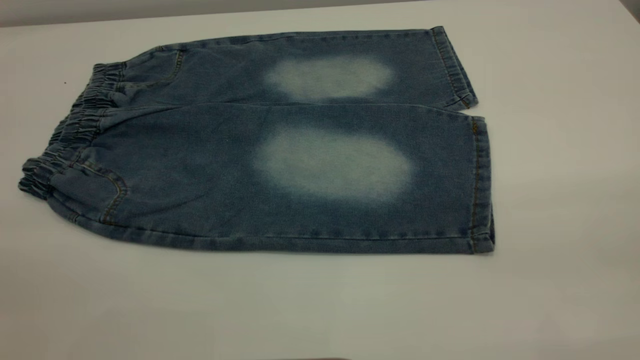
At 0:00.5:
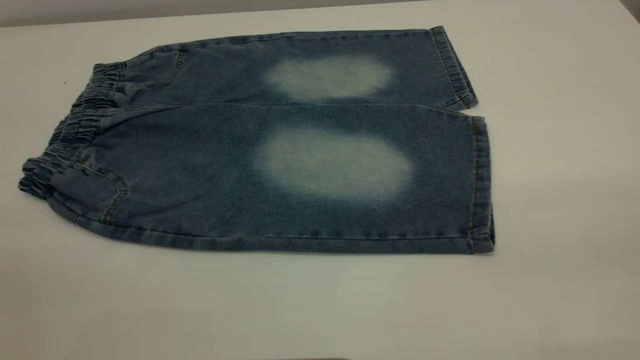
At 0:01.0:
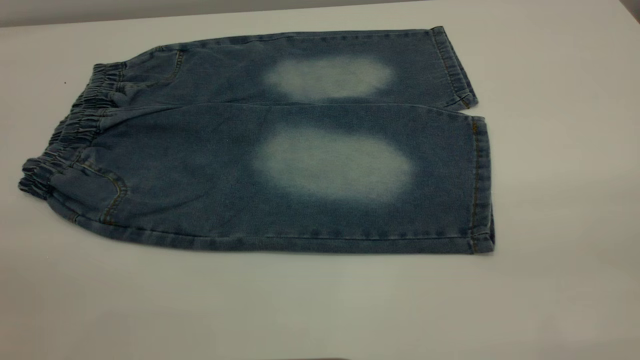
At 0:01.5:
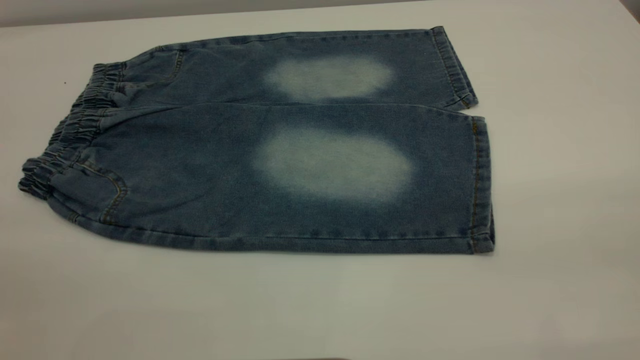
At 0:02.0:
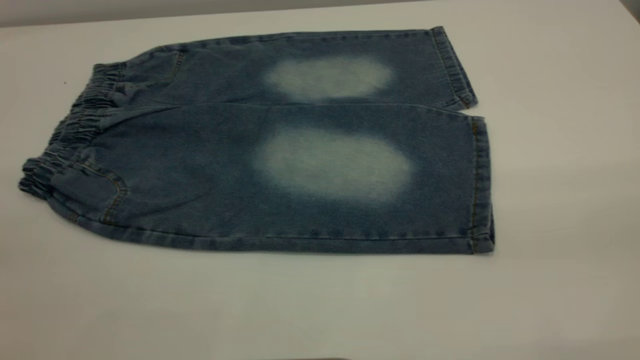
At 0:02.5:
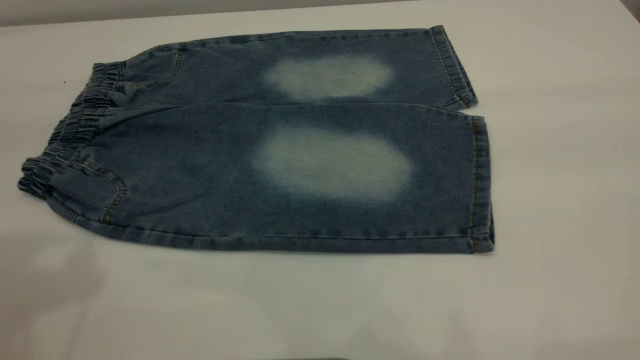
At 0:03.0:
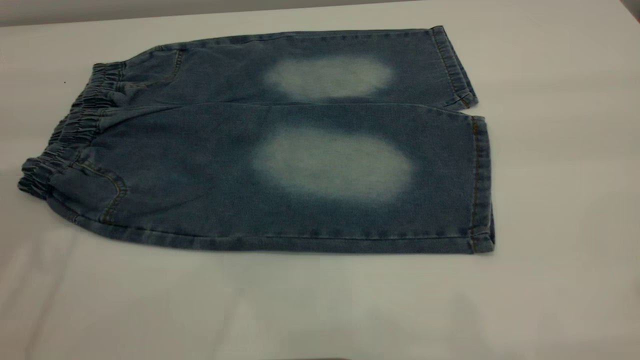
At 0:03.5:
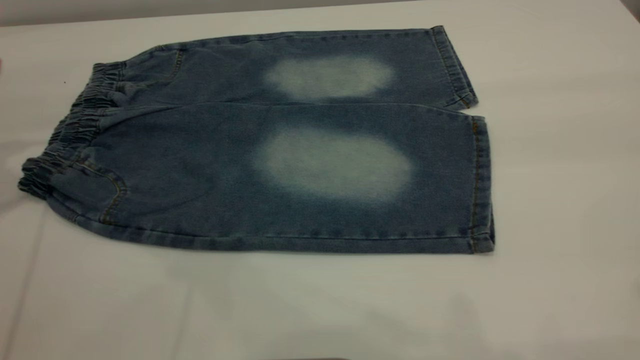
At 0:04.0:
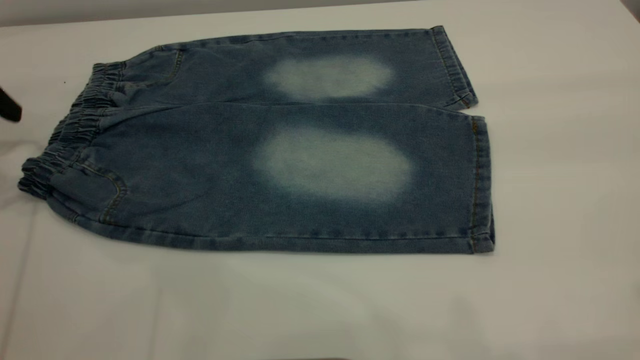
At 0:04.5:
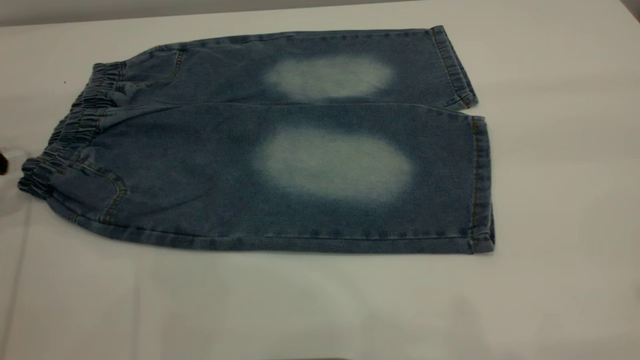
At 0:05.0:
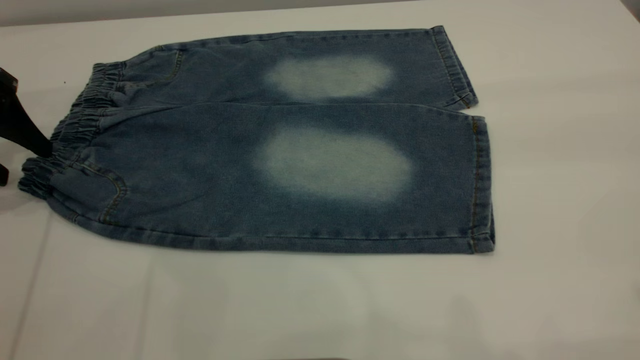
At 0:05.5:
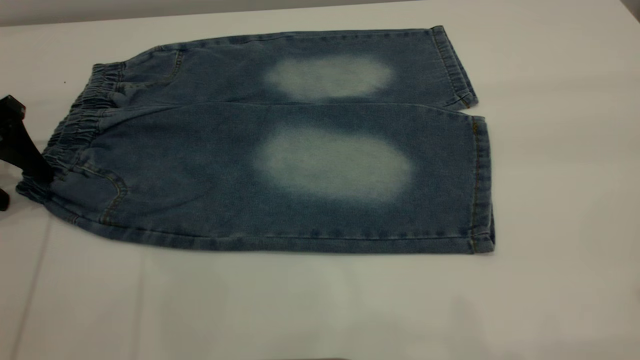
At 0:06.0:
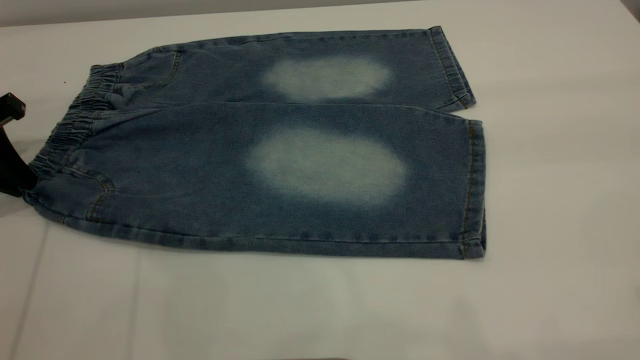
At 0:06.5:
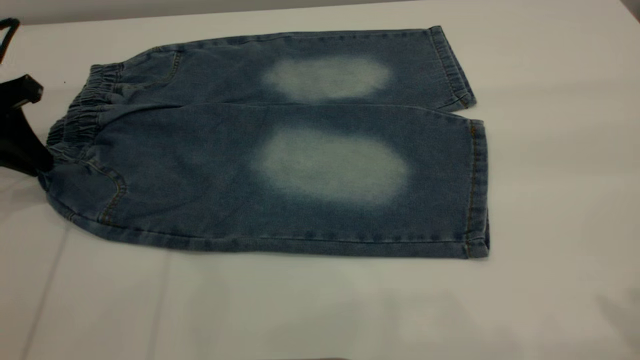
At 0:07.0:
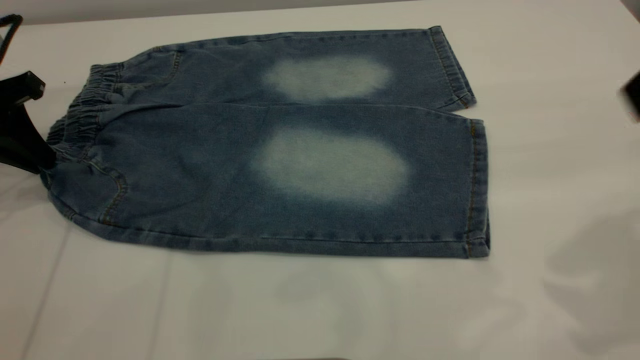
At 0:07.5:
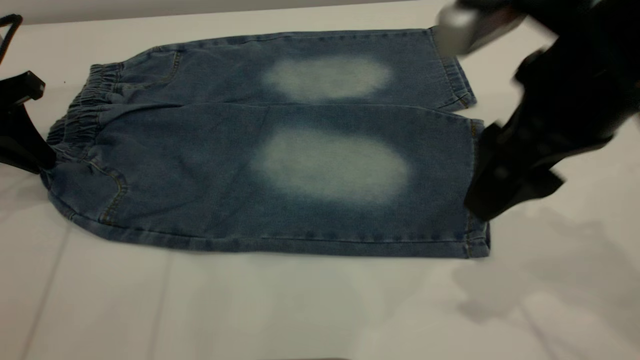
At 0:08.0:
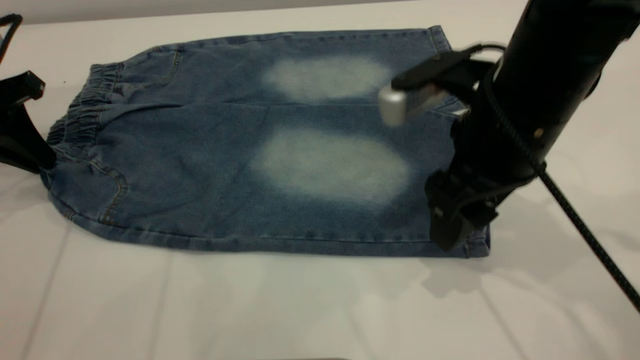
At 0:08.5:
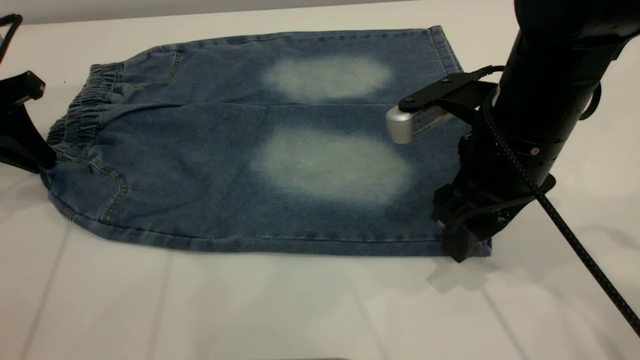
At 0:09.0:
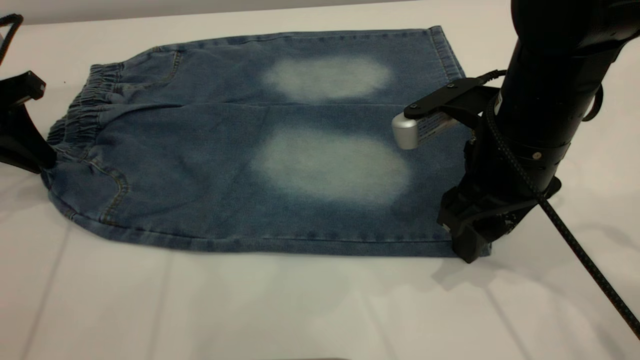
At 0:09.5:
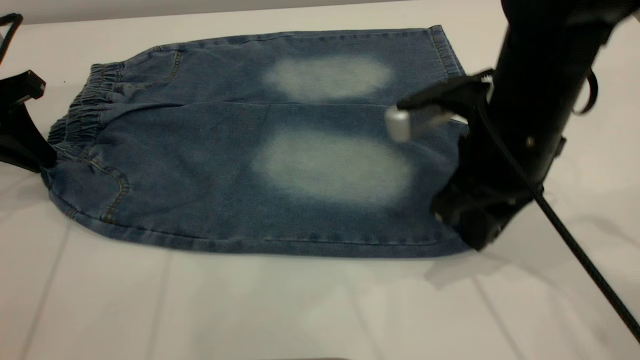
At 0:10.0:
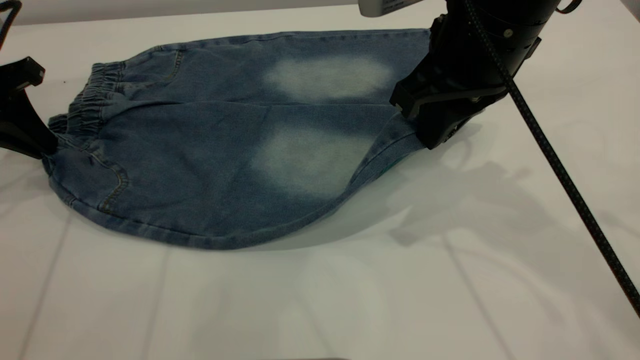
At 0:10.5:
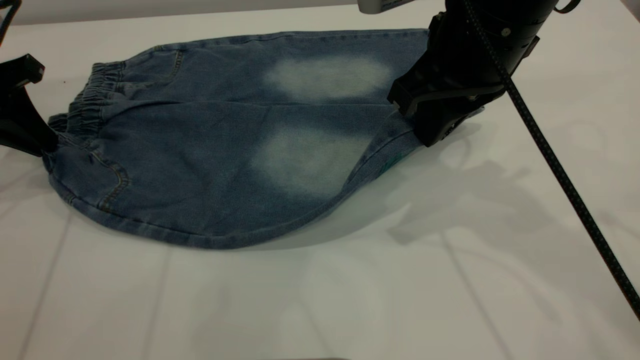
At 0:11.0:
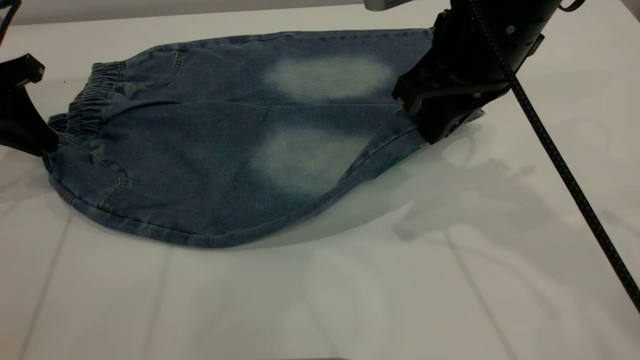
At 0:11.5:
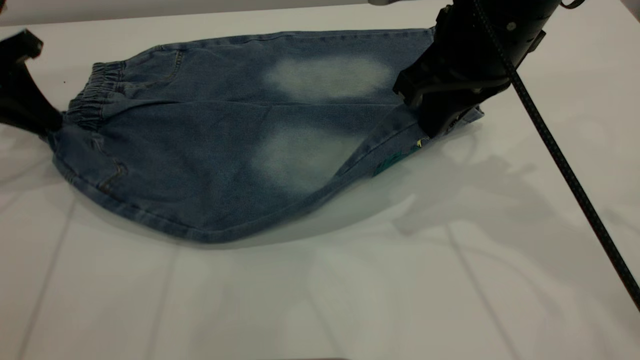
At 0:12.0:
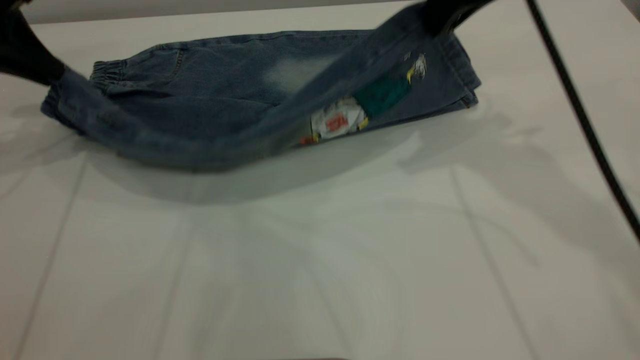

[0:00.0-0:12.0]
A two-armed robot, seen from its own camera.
0:02.0 to 0:04.0: The left gripper travels forward and downward by about 35 cm.
0:04.0 to 0:06.0: The left gripper goes approximately 5 cm downward, and closes up.
0:06.0 to 0:08.0: The right gripper moves downward, forward and to the left, roughly 30 cm.
0:08.0 to 0:10.0: The right gripper goes approximately 5 cm upward, and closes up.
0:10.0 to 0:12.0: The right gripper travels forward and upward by some 10 cm; the left gripper goes some 5 cm upward.

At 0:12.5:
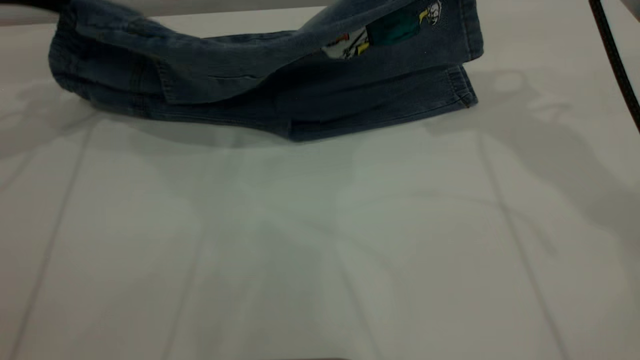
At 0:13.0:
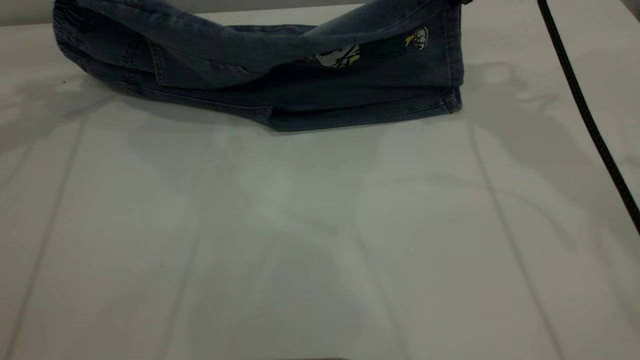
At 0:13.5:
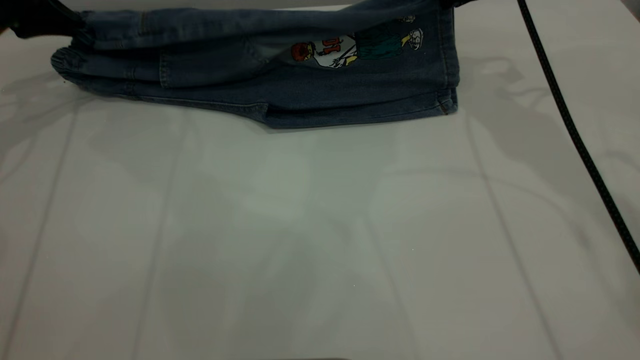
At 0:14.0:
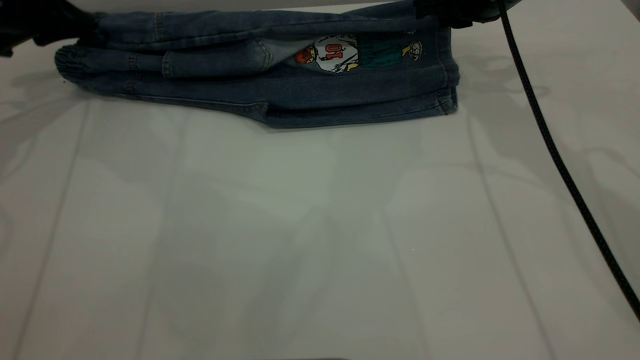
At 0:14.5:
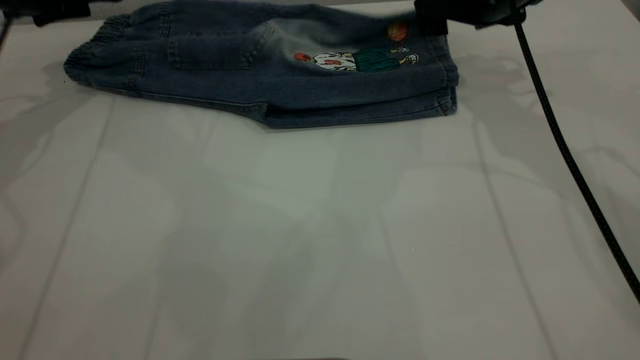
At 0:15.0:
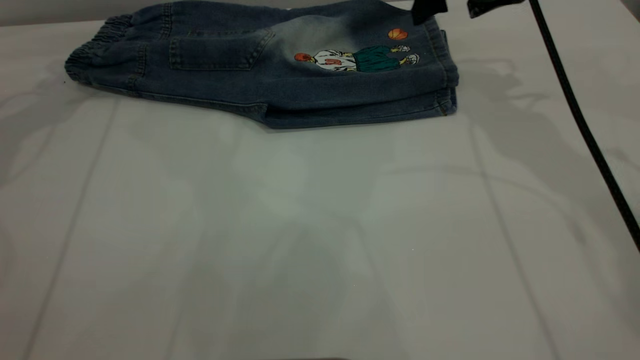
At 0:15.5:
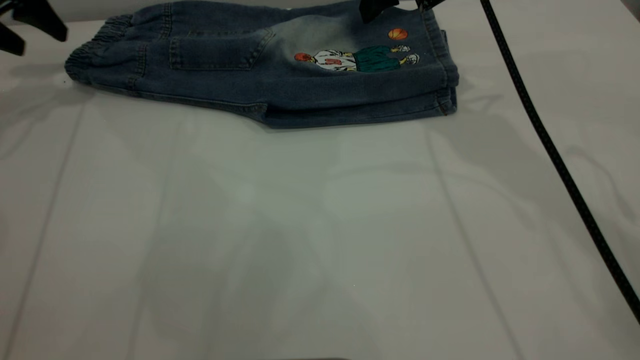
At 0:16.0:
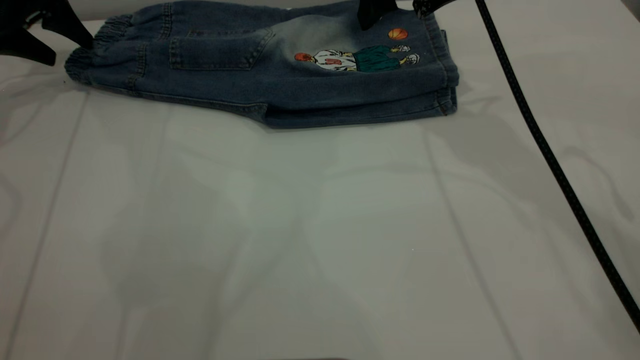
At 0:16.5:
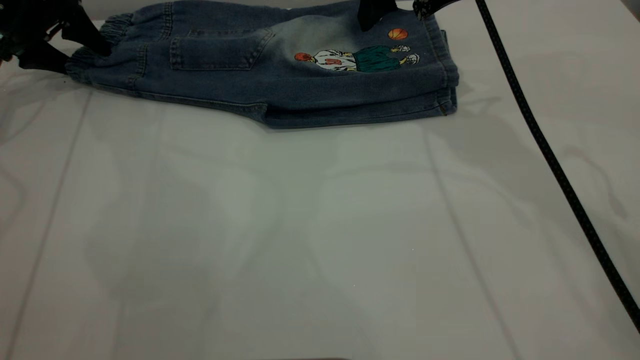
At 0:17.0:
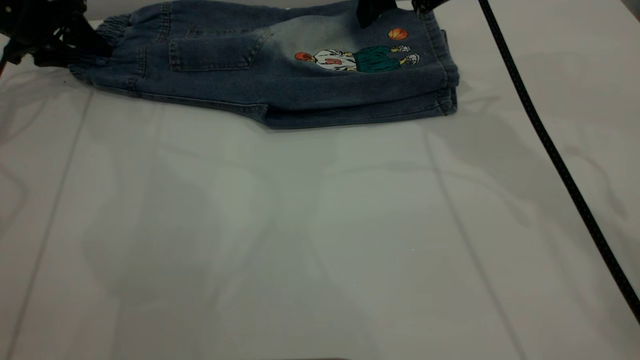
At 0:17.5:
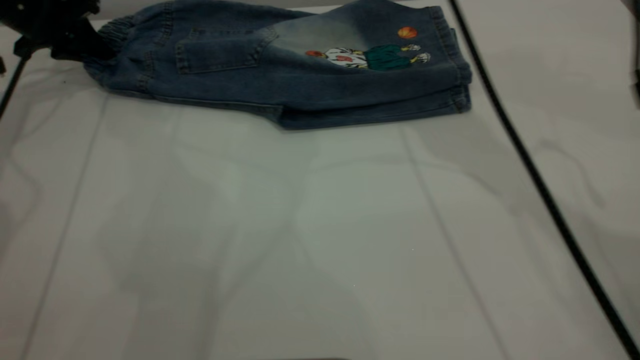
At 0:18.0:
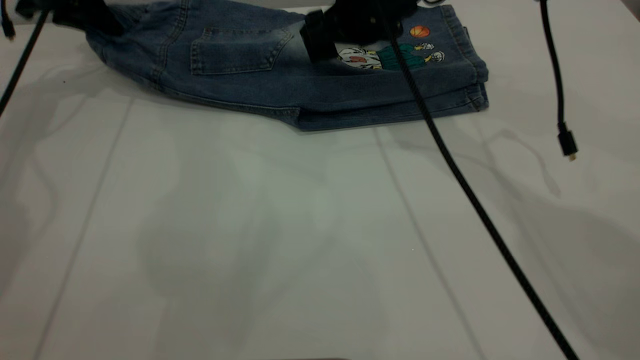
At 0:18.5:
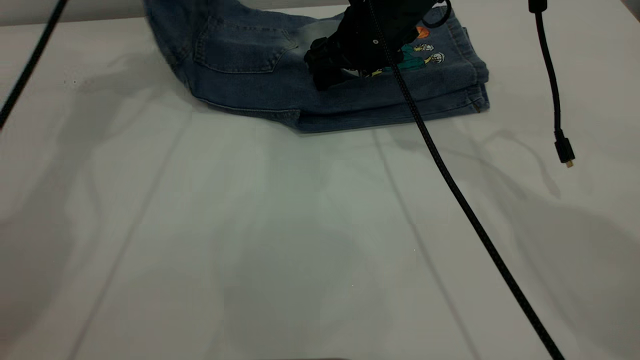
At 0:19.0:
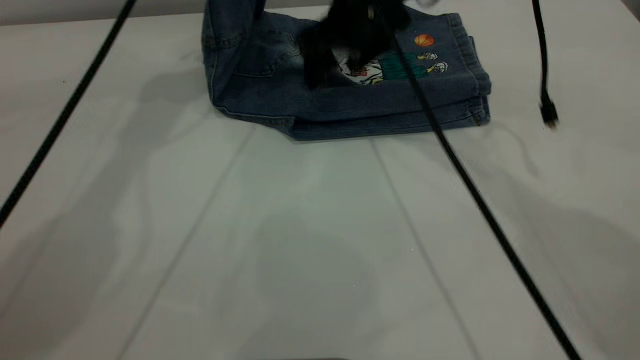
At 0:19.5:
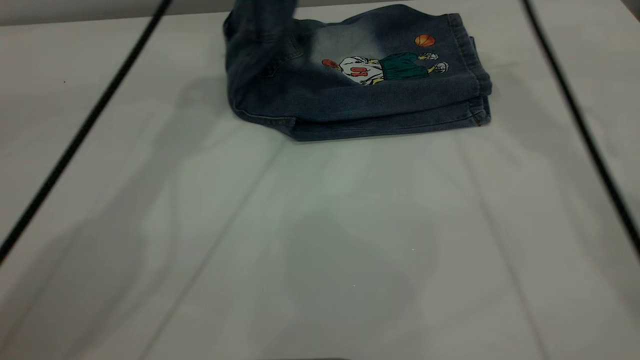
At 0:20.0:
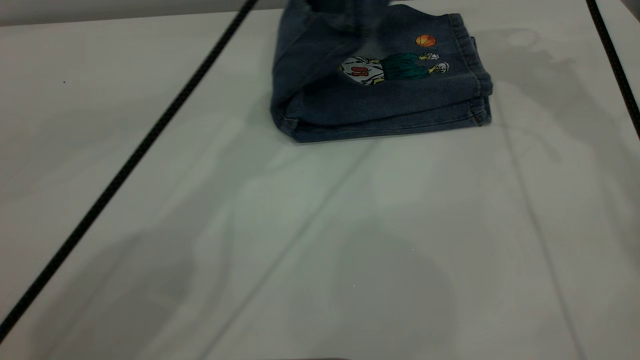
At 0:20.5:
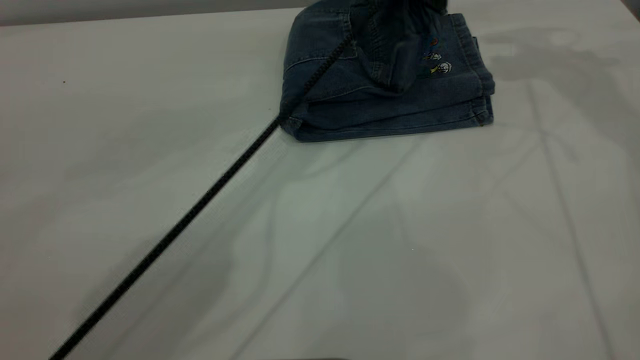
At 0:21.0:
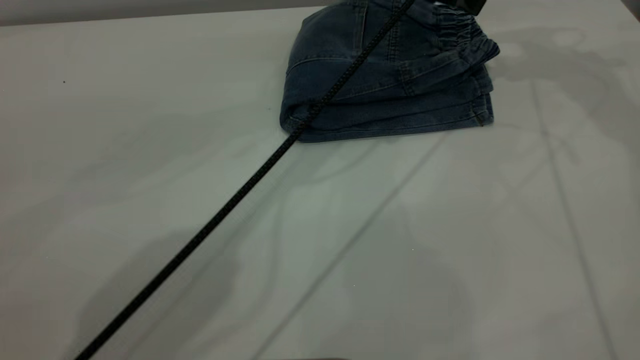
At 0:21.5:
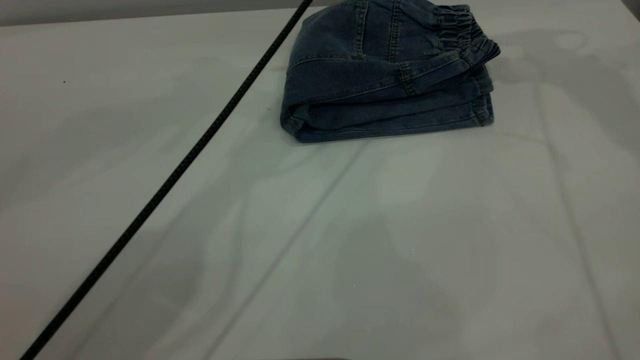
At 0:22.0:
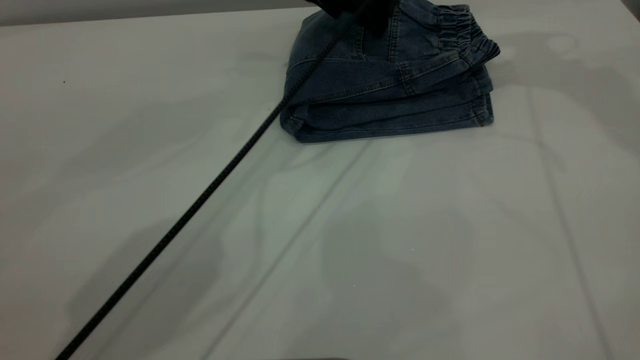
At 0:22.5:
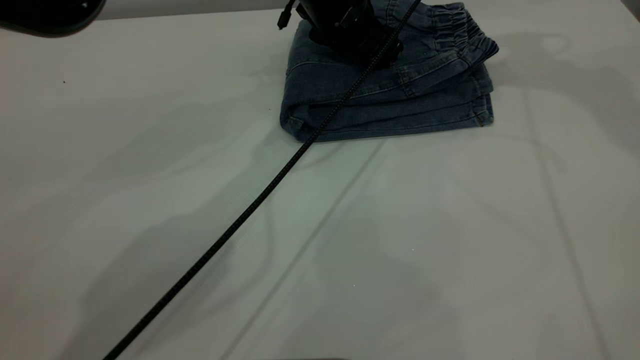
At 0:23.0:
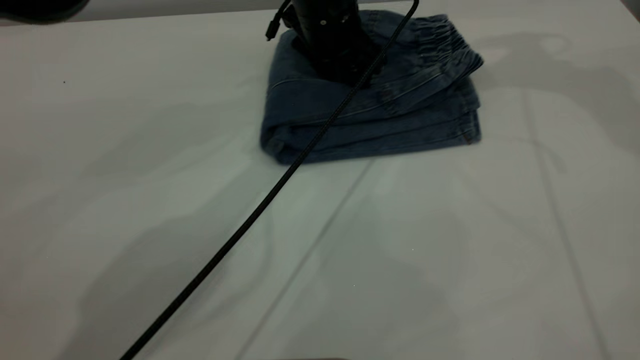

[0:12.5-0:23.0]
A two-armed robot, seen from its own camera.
Step, 0:12.5 to 0:14.5: Fold the bottom of the pants upward.
Step, 0:15.0 to 0:21.0: Fold the pants from left to right.
0:12.5 to 0:14.5: The right gripper travels downward by approximately 10 cm, and opens up, while the left gripper shifts roughly 10 cm downward and forward, and opens.
0:14.5 to 0:16.5: The right gripper travels to the left and upward by approximately 10 cm; the left gripper travels upward and back again, roughly 5 cm each way.
0:16.5 to 0:19.0: The right gripper heads to the left, covering some 5 cm. Meanwhile the left gripper is displaced to the right and upward by about 30 cm, and closes up.
0:19.0 to 0:21.0: The right gripper is displaced to the right and upward by some 25 cm, while the left gripper moves to the right, some 20 cm, and opens up.
0:21.0 to 0:23.0: The left gripper moves downward and to the left, about 10 cm; the right gripper changes place by about 5 cm.
